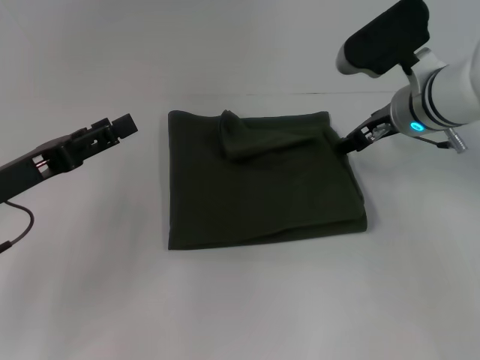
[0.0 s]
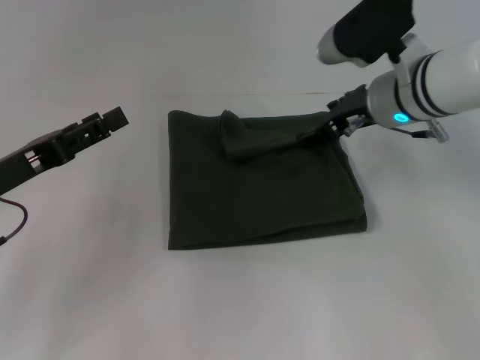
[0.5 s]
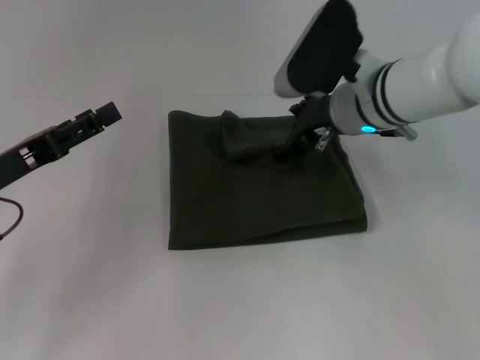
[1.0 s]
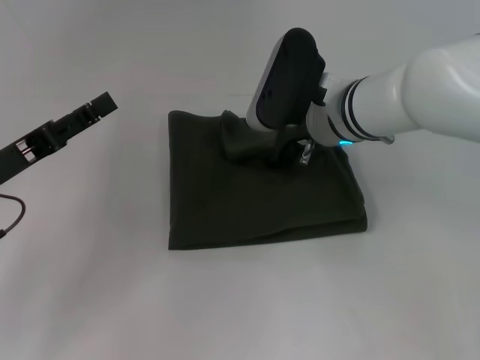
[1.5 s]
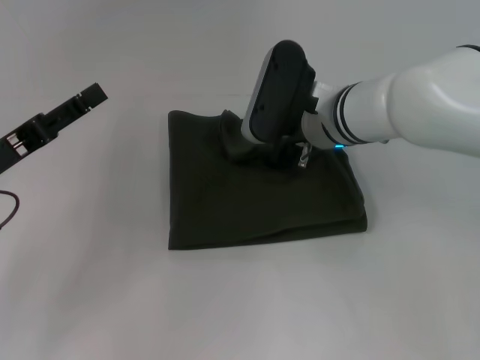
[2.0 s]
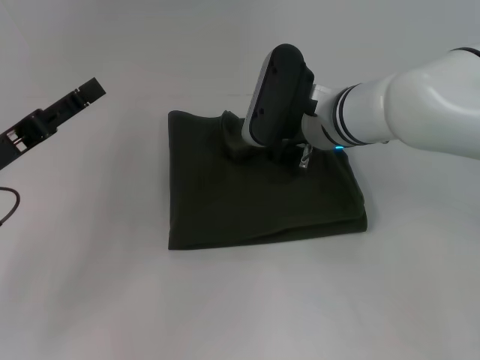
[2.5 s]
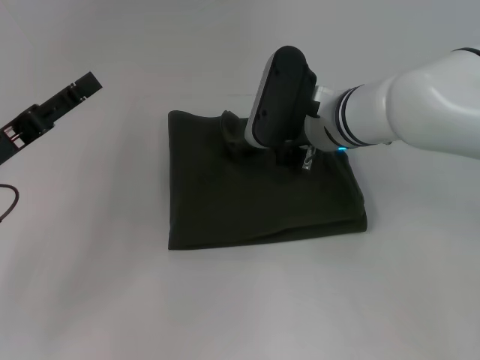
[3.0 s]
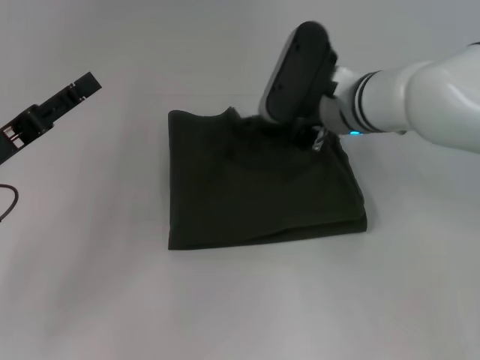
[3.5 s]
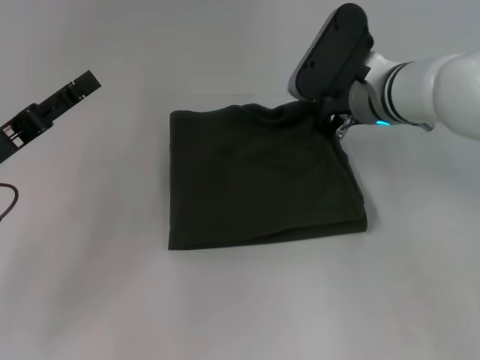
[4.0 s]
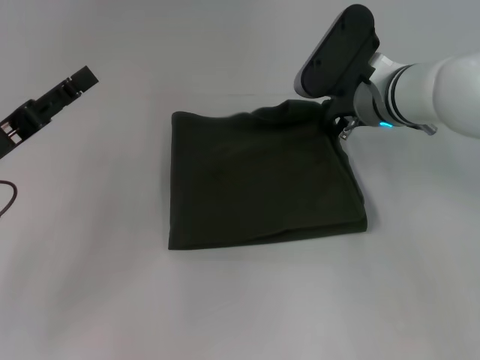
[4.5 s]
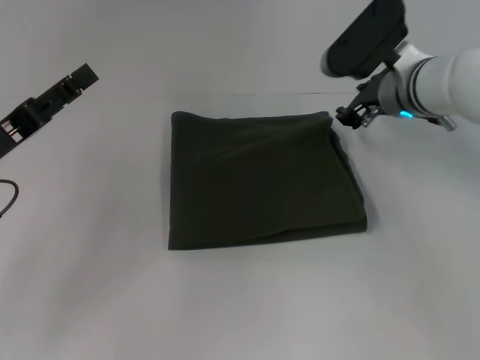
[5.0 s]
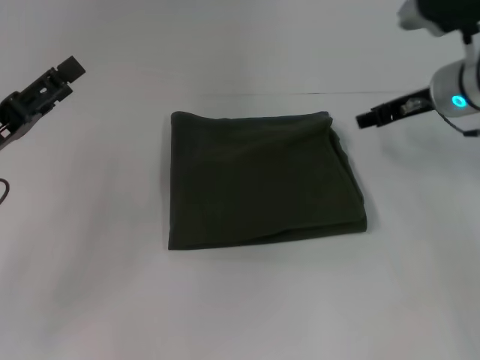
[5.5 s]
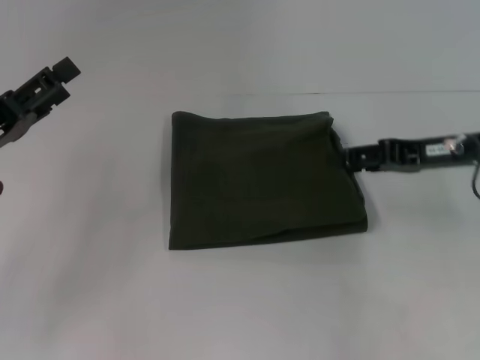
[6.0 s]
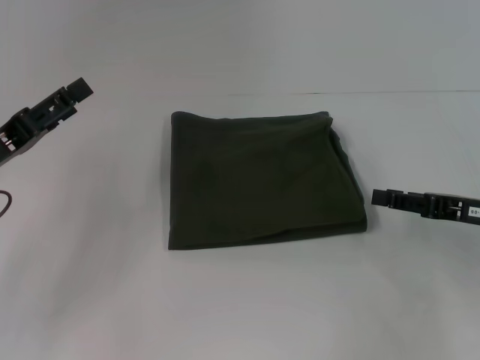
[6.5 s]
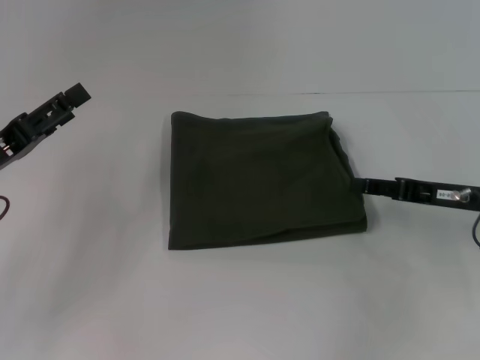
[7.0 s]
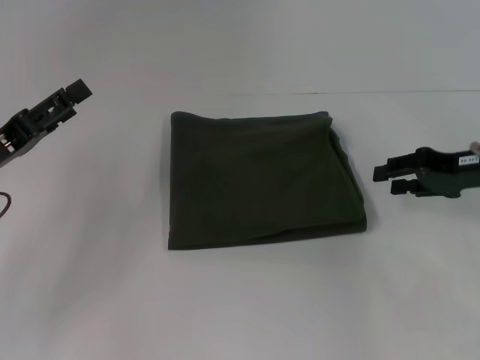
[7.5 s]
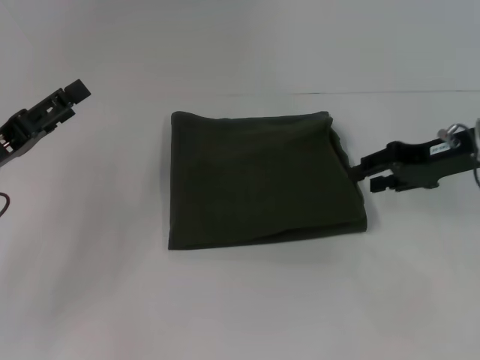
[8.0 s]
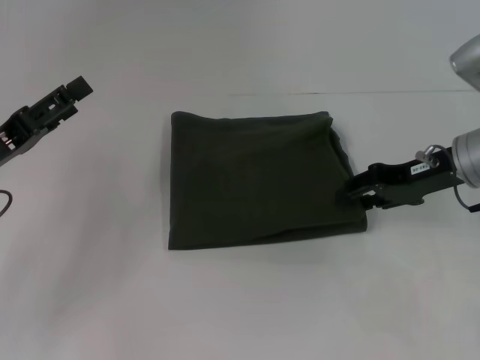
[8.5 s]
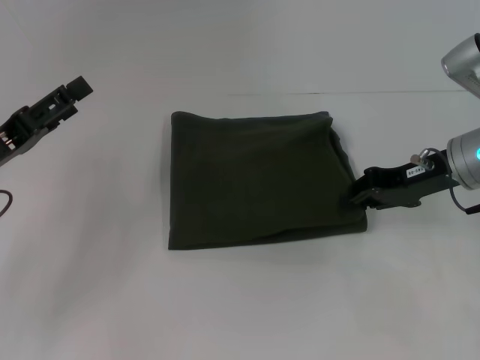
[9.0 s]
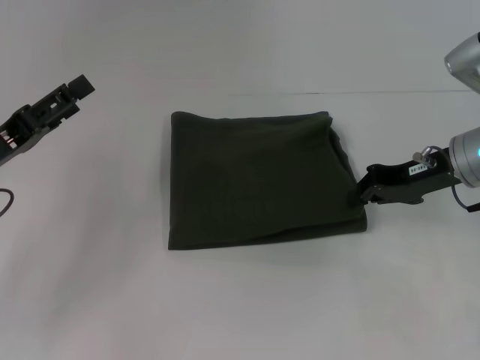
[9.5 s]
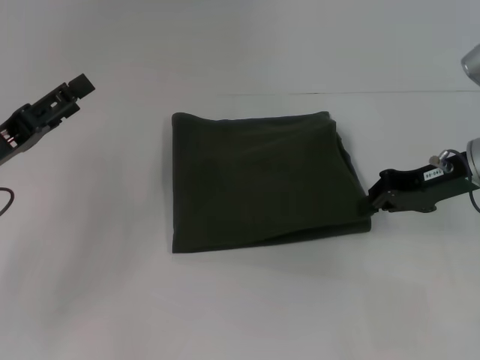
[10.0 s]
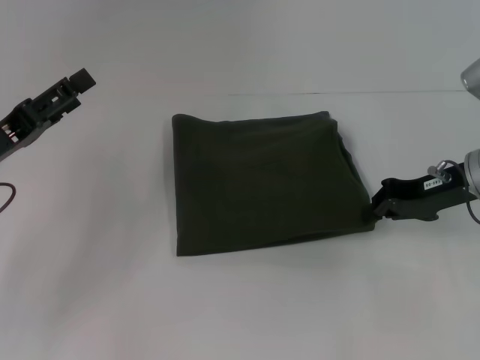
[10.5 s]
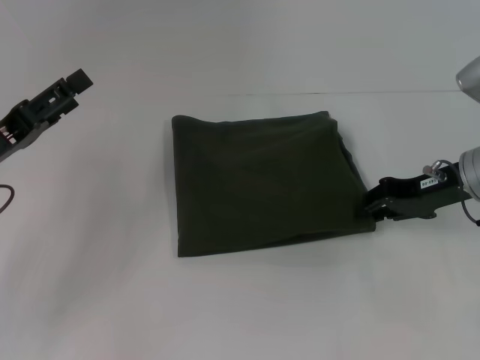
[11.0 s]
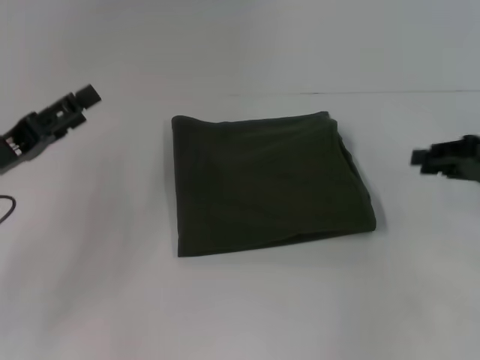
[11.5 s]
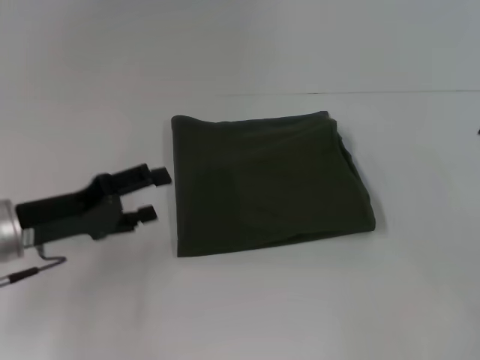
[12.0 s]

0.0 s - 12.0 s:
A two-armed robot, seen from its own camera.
0.0 s - 2.0 s: The right gripper shifts approximately 10 cm to the left.
2.0 s - 4.0 s: The right gripper shifts by about 5 cm, and closes up.
4.0 s - 6.0 s: The right gripper is displaced to the right and backward by about 15 cm, and opens its fingers.
8.0 s - 10.0 s: The right gripper closes.
10.0 s - 12.0 s: The right gripper heads to the right and backward, covering some 15 cm, and opens up.

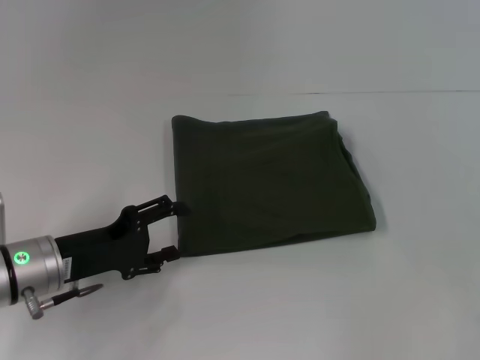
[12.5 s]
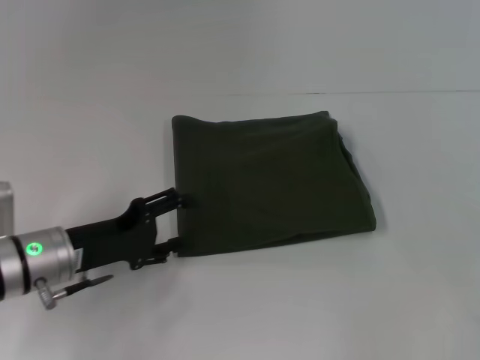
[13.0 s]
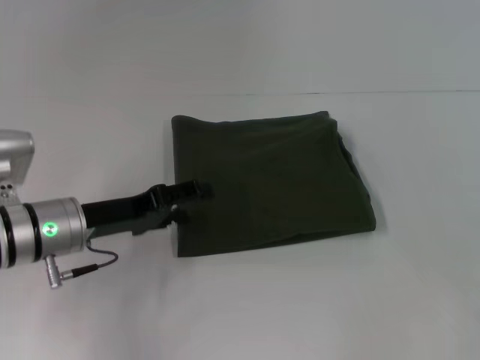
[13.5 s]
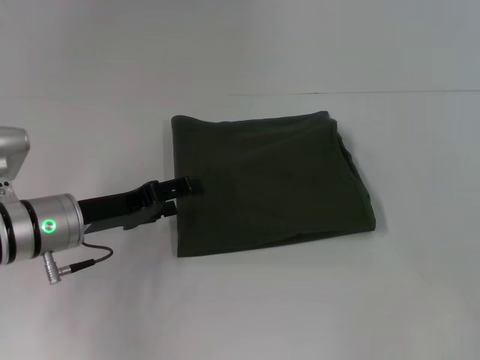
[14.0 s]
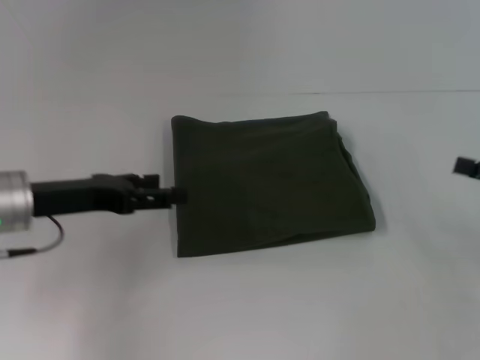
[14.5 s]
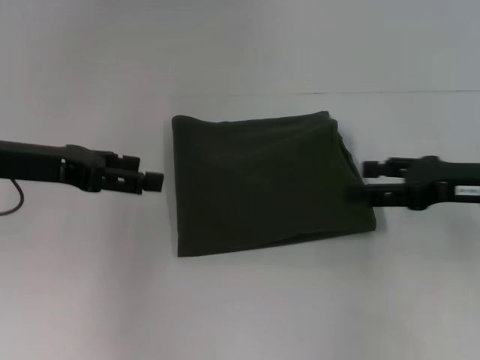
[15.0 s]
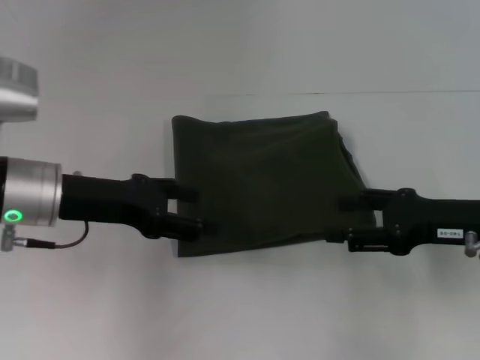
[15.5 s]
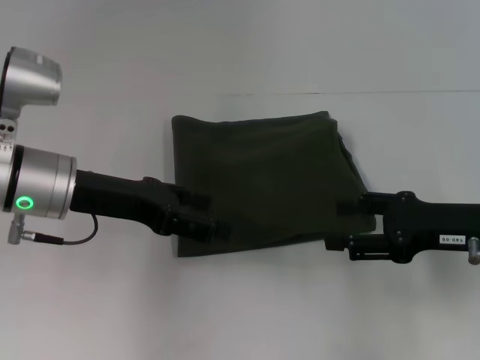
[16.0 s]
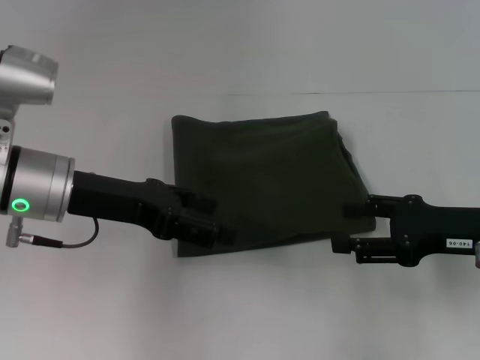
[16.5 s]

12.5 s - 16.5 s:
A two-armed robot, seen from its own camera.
12.5 s - 14.5 s: The left gripper moves upward, approximately 5 cm.
14.5 s - 16.5 s: The left gripper shifts by roughly 5 cm. The right gripper moves to the left, approximately 10 cm.

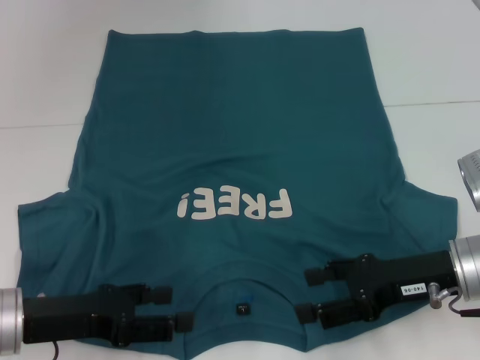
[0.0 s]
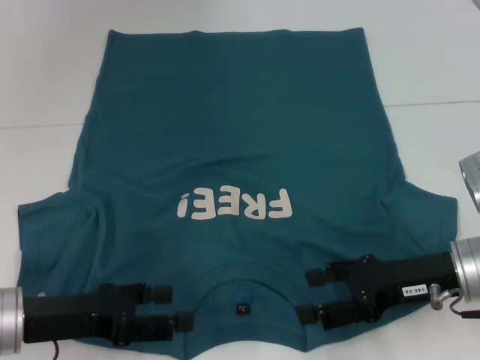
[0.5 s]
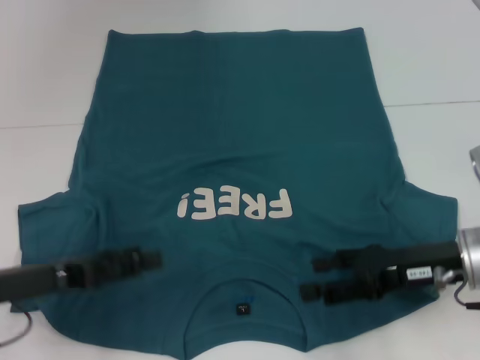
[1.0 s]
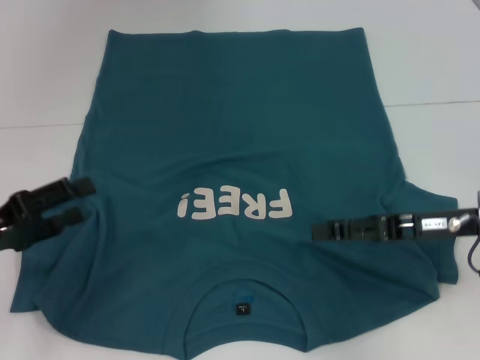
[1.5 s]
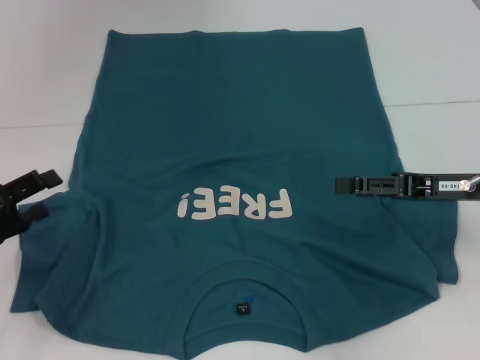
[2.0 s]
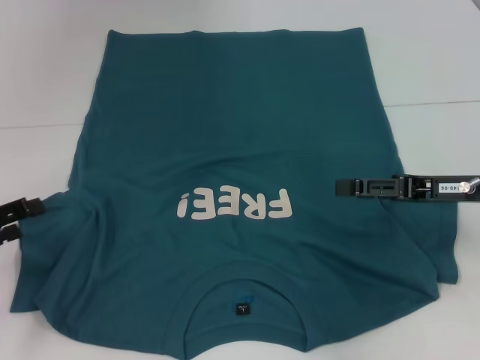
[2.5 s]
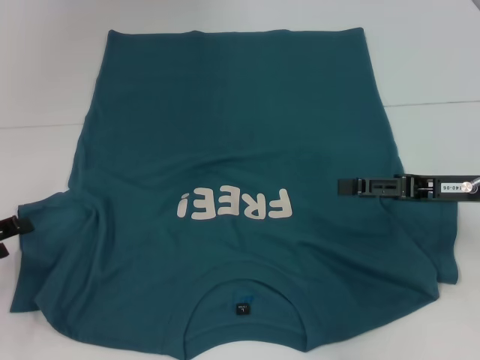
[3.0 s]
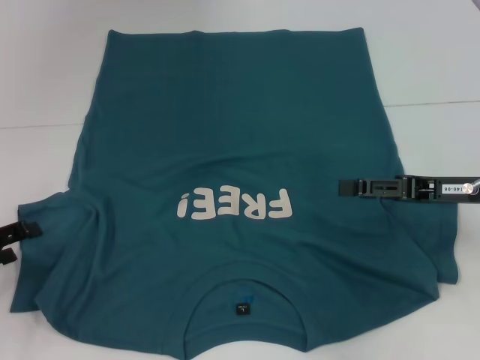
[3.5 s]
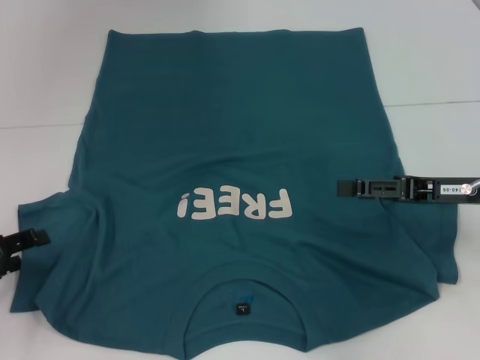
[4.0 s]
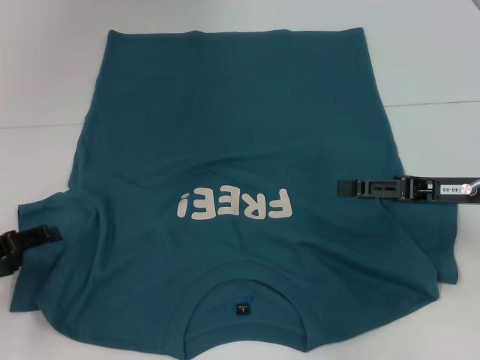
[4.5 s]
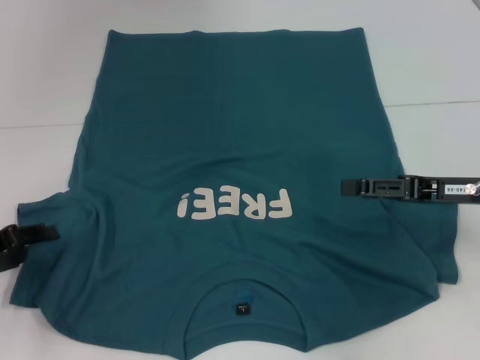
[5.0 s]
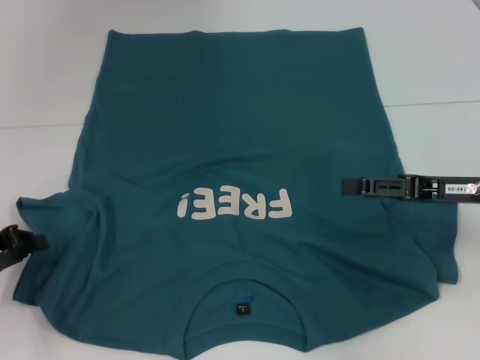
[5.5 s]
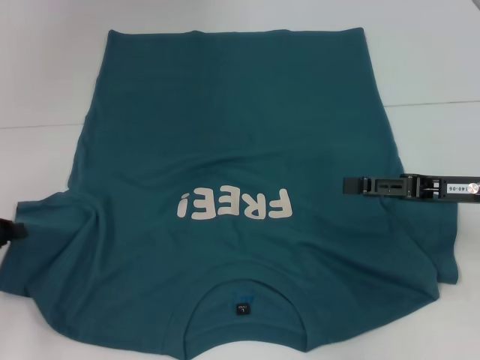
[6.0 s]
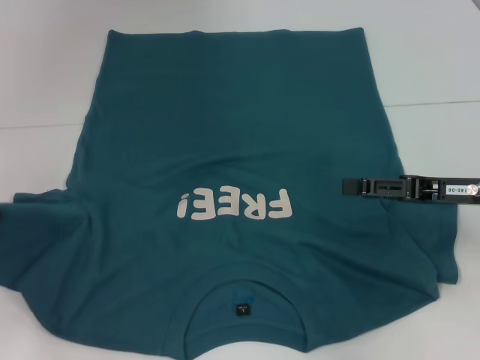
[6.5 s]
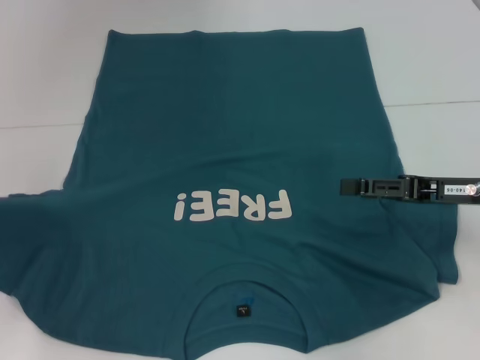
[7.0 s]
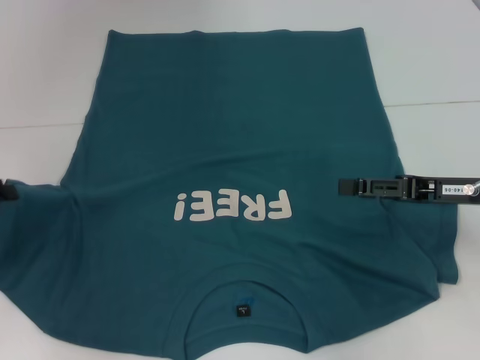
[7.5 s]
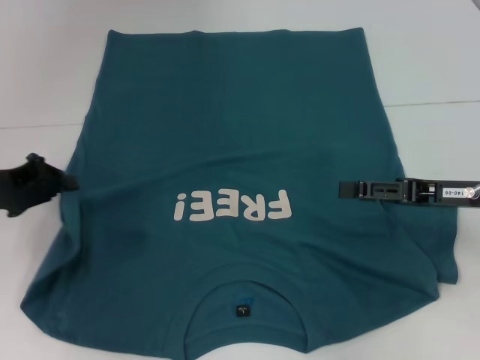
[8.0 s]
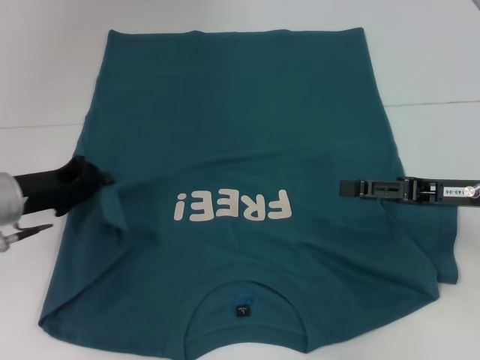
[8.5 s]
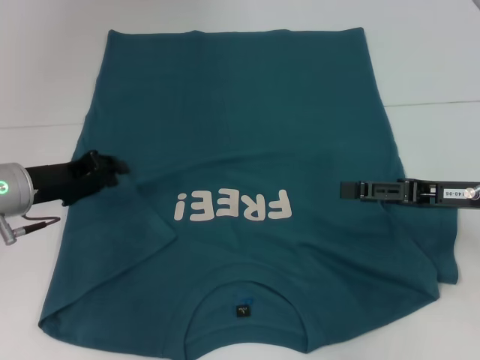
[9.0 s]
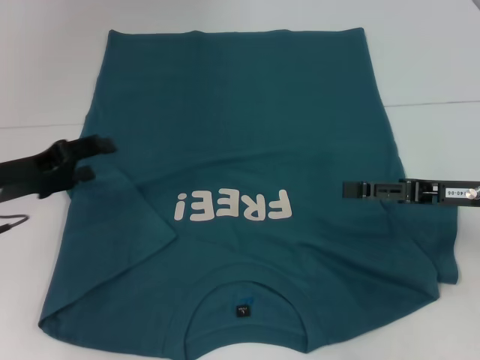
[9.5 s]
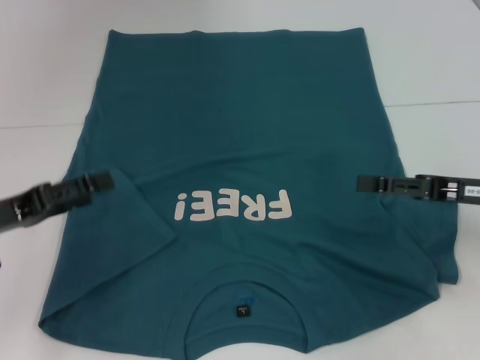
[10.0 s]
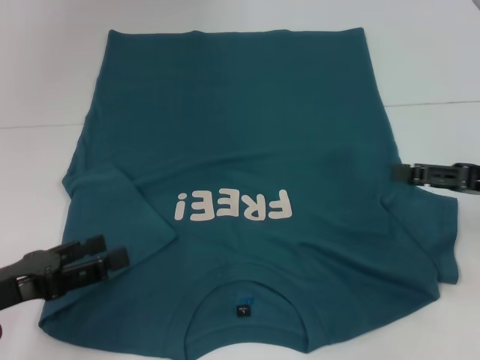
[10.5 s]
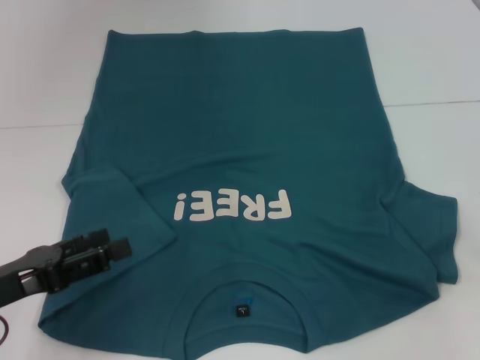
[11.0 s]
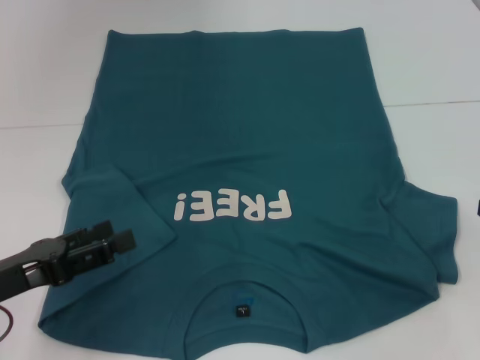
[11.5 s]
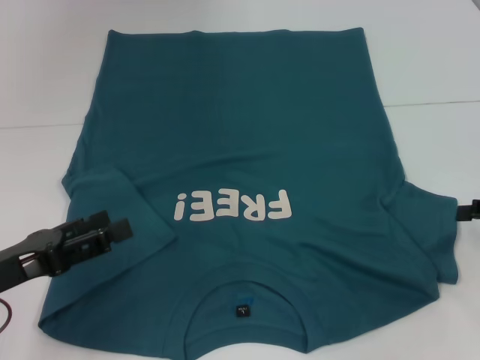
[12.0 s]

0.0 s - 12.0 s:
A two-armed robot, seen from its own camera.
Step, 0.0 s - 9.0 s: Fold the bottom left sleeve with your left hand.
0.0 s - 2.0 s: The left gripper is displaced to the left by roughly 10 cm, while the right gripper changes place by about 5 cm.
2.0 s - 4.0 s: The grippers stay close to where they were, moving slightly.
4.0 s - 6.0 s: The left gripper closes.
6.0 s - 8.0 s: The left gripper changes place by roughly 10 cm.
8.0 s - 10.0 s: The left gripper travels backward by approximately 5 cm, and opens its fingers.
10.0 s - 12.0 s: The left gripper goes roughly 5 cm backward. The right gripper is displaced to the right by some 10 cm.
